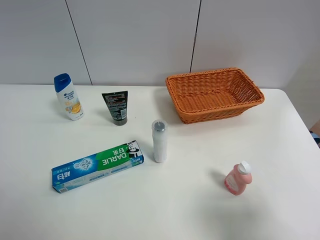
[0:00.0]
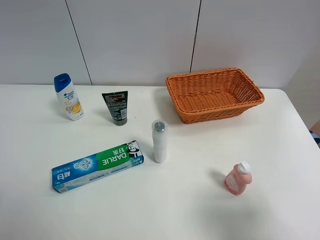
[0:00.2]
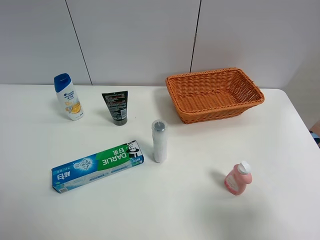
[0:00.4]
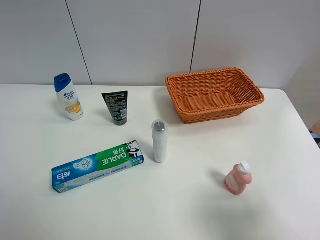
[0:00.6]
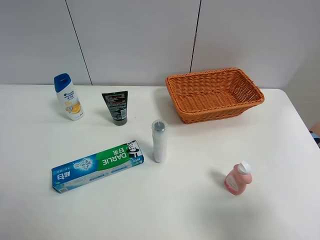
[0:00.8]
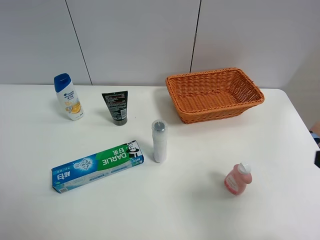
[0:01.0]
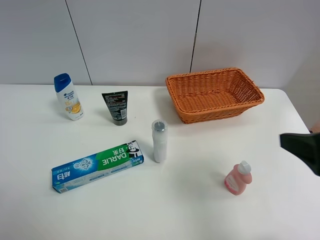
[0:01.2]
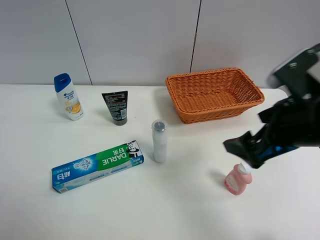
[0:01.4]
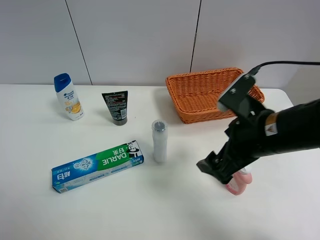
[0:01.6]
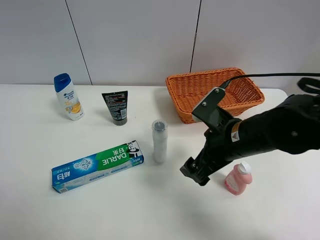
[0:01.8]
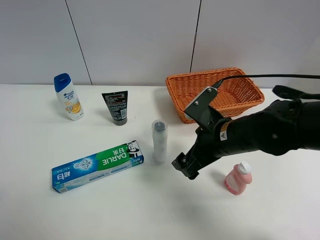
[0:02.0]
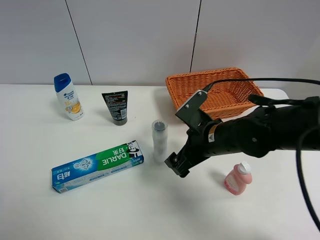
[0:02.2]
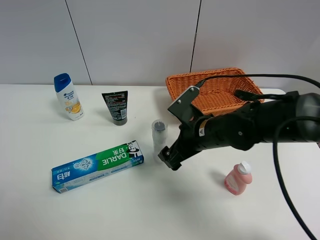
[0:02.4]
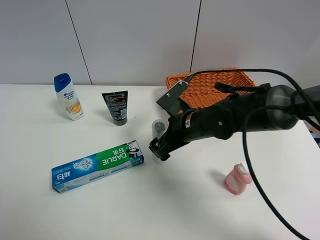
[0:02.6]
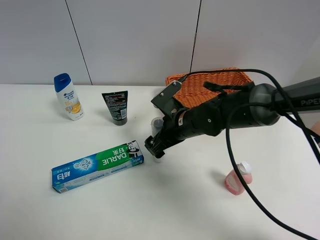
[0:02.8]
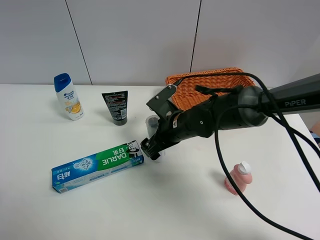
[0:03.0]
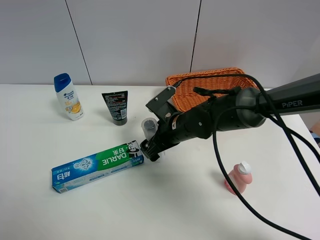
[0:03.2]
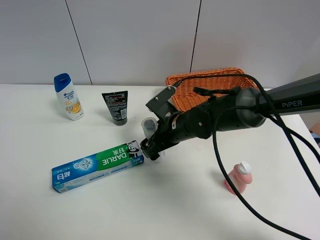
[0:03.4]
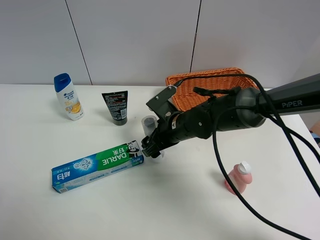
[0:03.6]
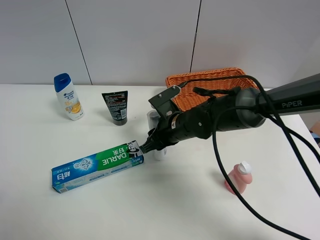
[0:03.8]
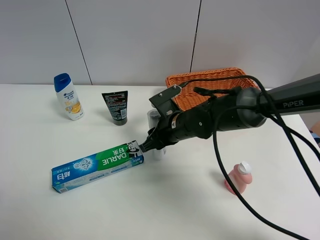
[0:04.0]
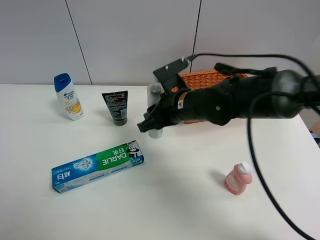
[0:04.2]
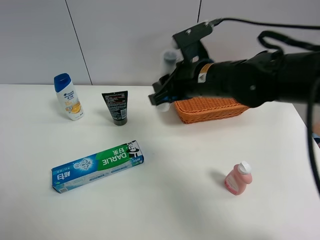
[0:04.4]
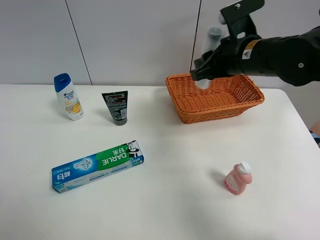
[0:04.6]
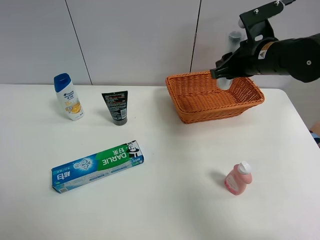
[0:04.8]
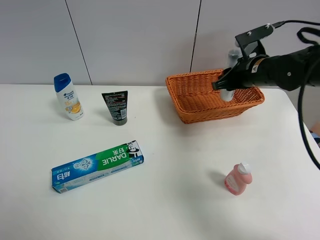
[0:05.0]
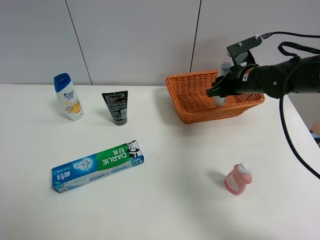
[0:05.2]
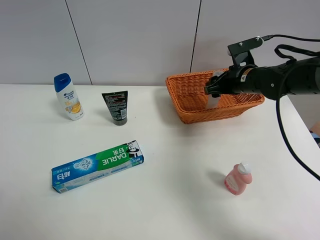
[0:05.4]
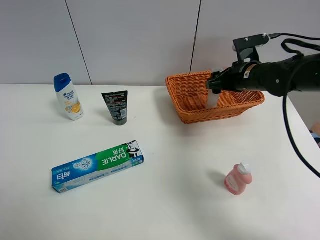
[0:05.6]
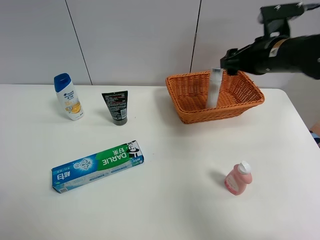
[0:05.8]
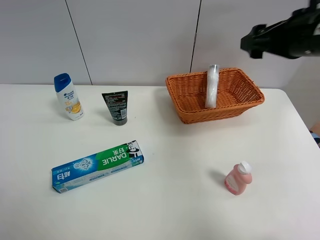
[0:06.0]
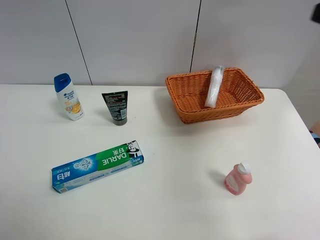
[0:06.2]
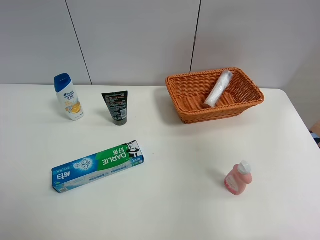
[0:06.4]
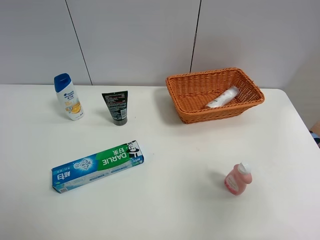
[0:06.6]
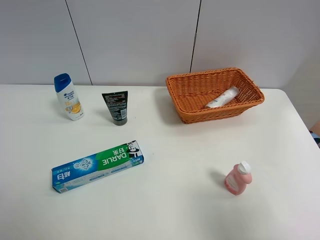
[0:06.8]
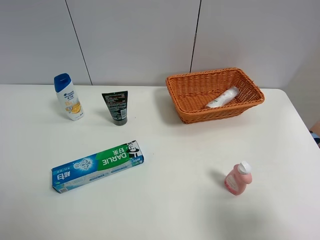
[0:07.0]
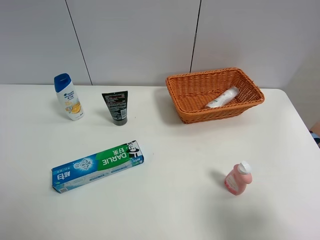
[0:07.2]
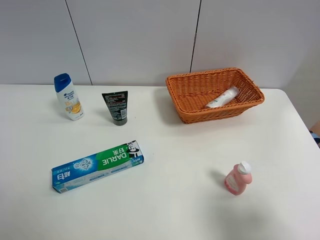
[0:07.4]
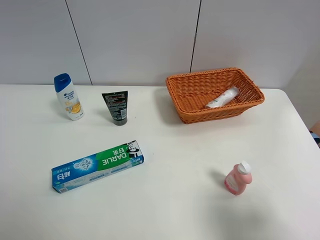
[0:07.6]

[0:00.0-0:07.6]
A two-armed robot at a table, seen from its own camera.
Task of the whole recording: Place the object closest to the toothpaste in the basket.
Step, 0:00.0 to 0:03.8: Grasp the cleaning agent with right gripper.
Step, 0:04.0 to 0:05.8: Place the cleaning agent in the basket with right gripper.
0:00.0 to 0:01.6: The right gripper shifts some 20 cm forward and to the left.
0:01.6 to 0:03.0: The right gripper moves downward, to the left and forward, some 20 cm.
0:03.0 to 0:04.6: The right gripper heads upward and to the right, covering roughly 20 cm, and closes its fingers.
0:04.6 to 0:06.0: The right gripper goes some 10 cm to the right and upward, and opens its fingers.
0:06.0 to 0:07.6: The right gripper moves backward, approximately 25 cm.
